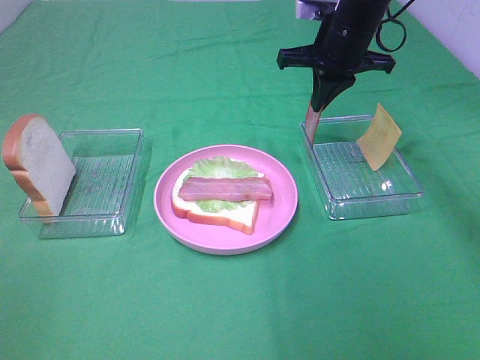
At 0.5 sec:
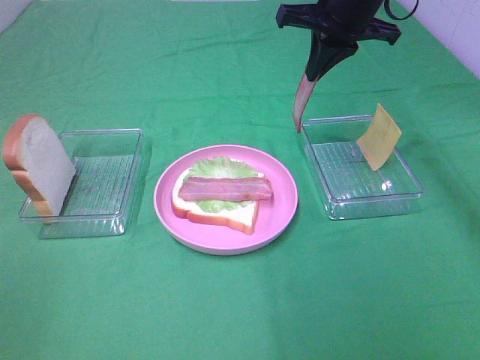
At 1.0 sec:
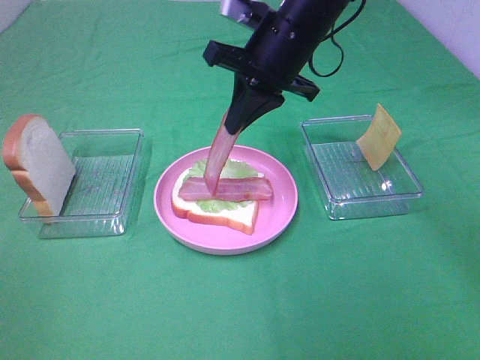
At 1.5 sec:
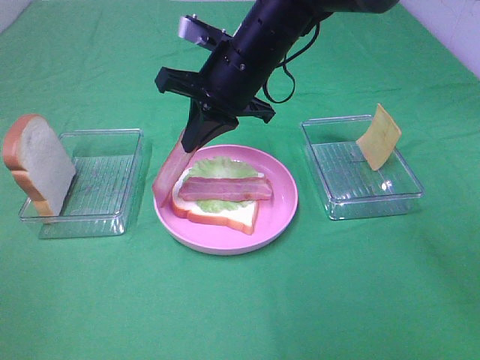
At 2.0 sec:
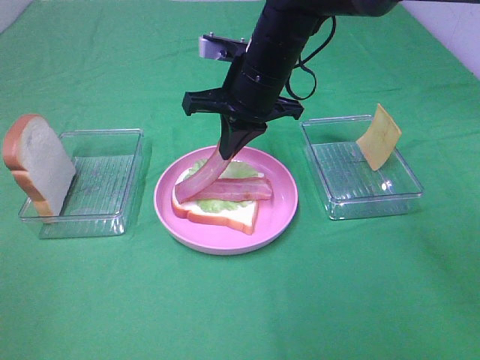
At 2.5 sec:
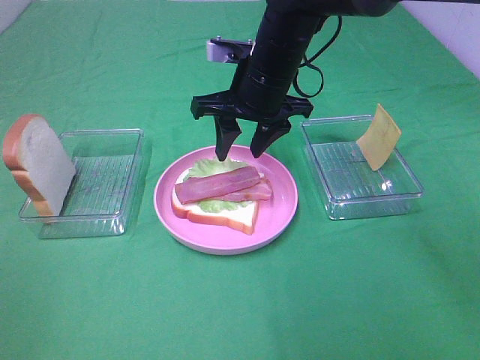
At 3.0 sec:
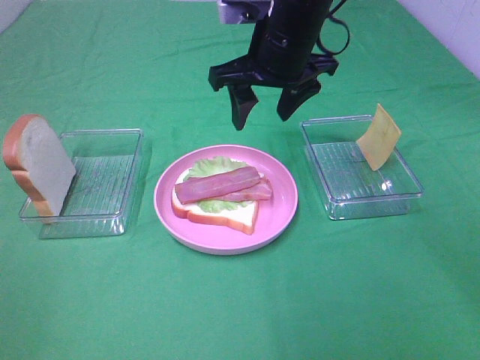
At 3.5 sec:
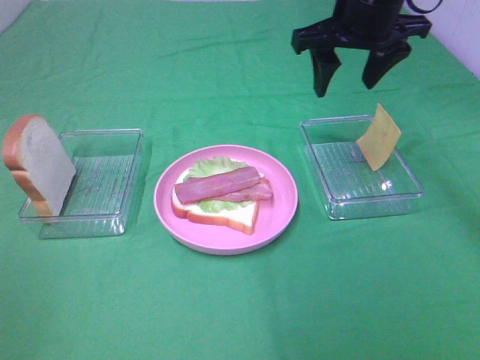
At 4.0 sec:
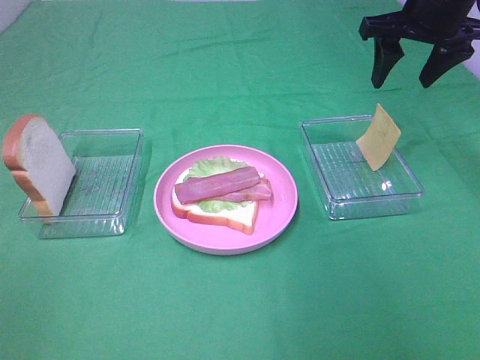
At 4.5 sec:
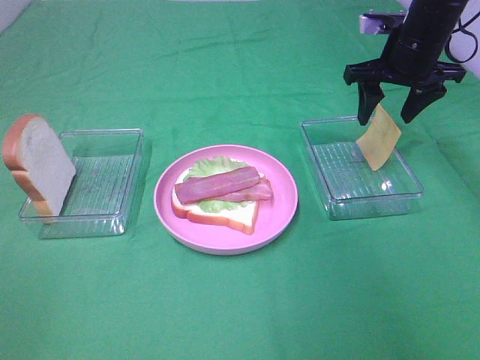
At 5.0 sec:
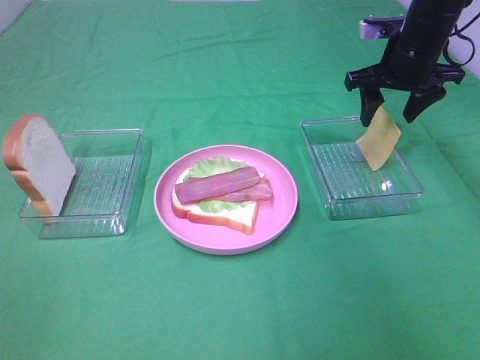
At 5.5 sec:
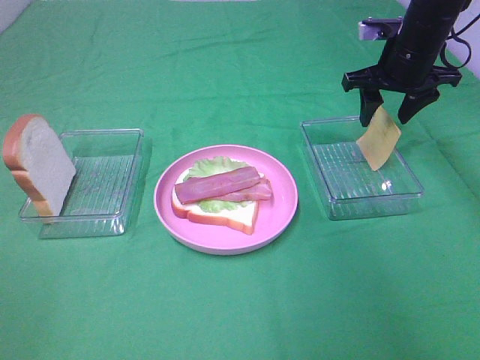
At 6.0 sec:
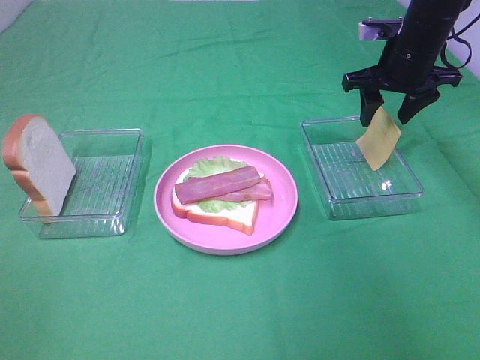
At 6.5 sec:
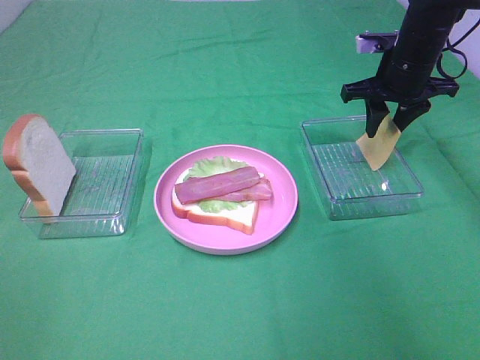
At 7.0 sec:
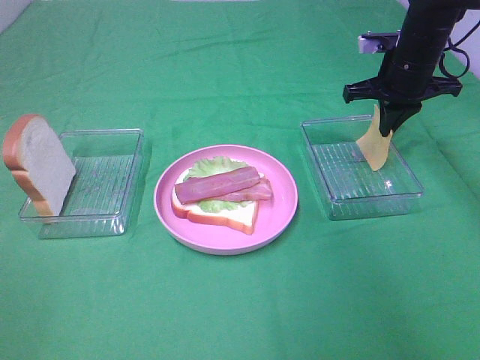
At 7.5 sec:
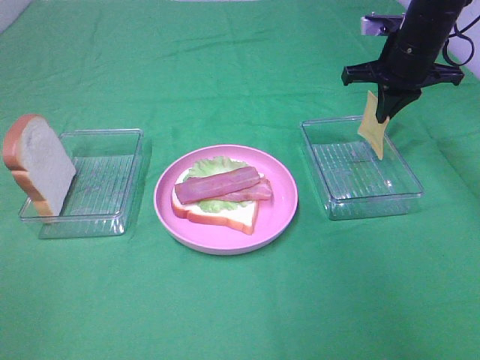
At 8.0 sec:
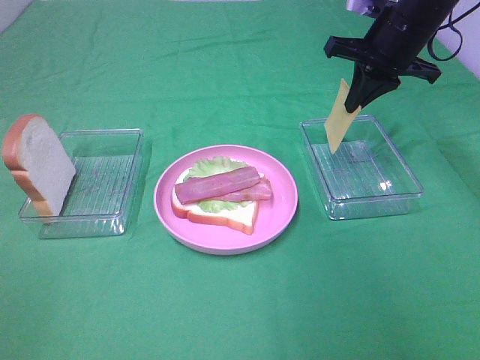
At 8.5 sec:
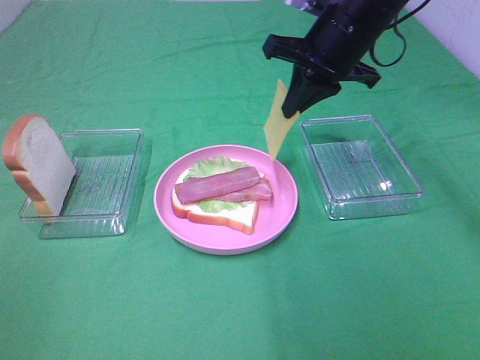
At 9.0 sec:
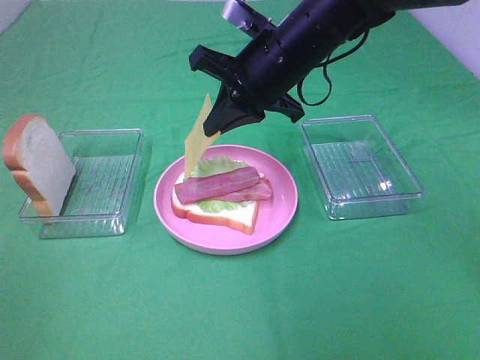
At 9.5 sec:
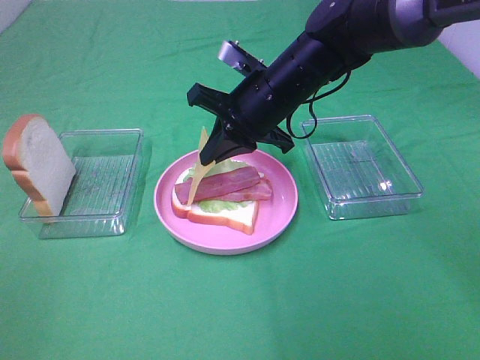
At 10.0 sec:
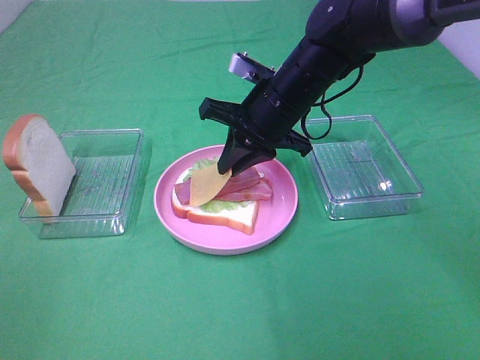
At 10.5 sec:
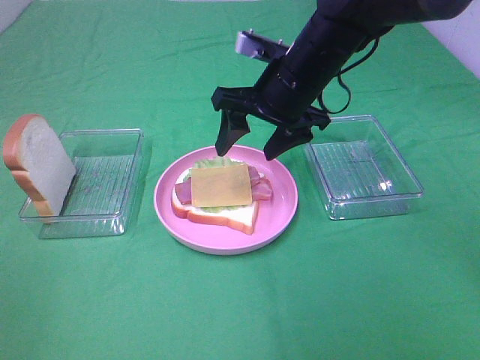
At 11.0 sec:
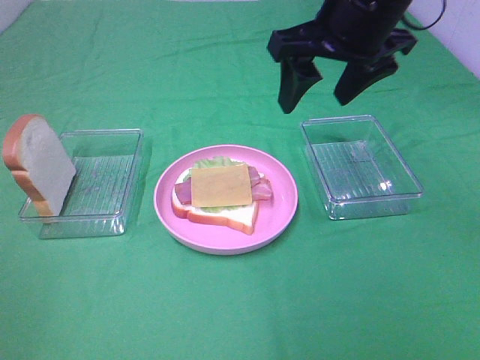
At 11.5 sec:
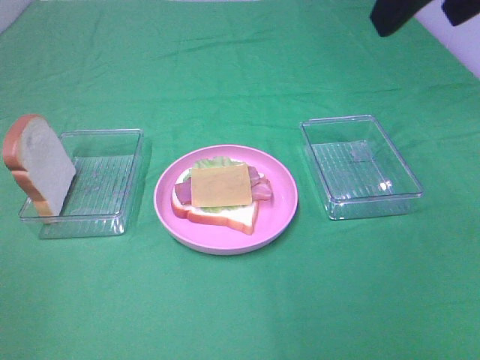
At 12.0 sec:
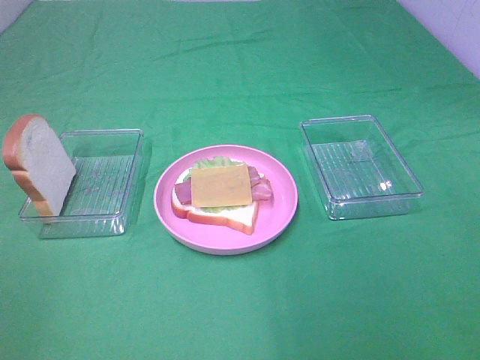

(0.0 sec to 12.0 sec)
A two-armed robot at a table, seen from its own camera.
Task of the whole recording: Make sandwiches.
Step, 0.0 sec - 2.5 sec: Right hand:place bacon on bacon.
Step, 3.0 sec - 7.0 sec: Right hand:grab the cheese slice.
Step, 7.5 sec - 10.5 sec: Right hand:place the cheese slice on top of the bacon.
0.0 sec - 2.0 sec: The right gripper heads to the left and backward, covering some 15 cm.
2.0 sec - 4.0 sec: The right gripper shifts approximately 20 cm to the right, and opens its fingers.
4.0 sec - 6.0 sec: The right gripper is displaced downward by some 10 cm.
6.0 sec - 8.0 sec: The right gripper moves approximately 5 cm, and closes its fingers.
8.0 sec - 10.0 sec: The right gripper travels to the left, downward and backward by roughly 15 cm.
10.0 sec - 12.0 sec: The right gripper travels backward, to the right and upward by some 40 cm, and opens.

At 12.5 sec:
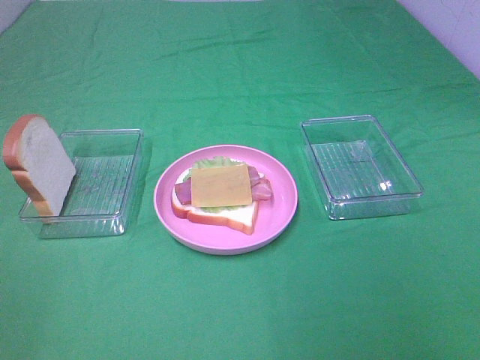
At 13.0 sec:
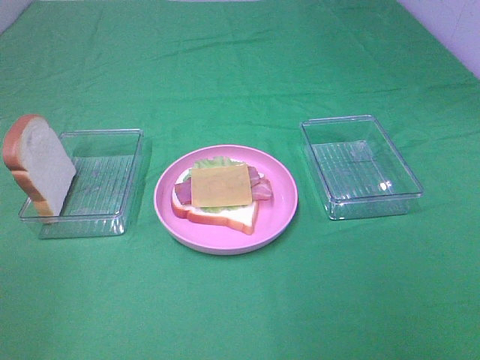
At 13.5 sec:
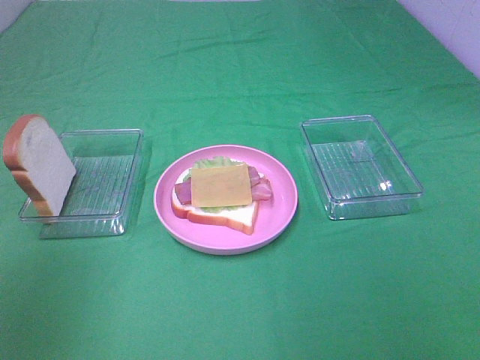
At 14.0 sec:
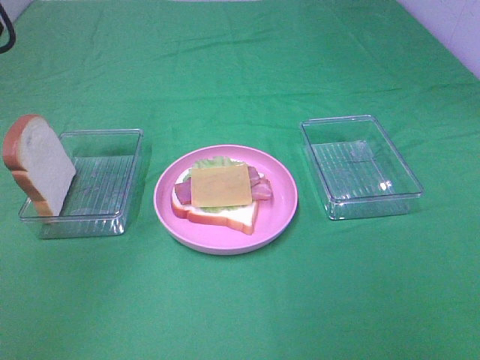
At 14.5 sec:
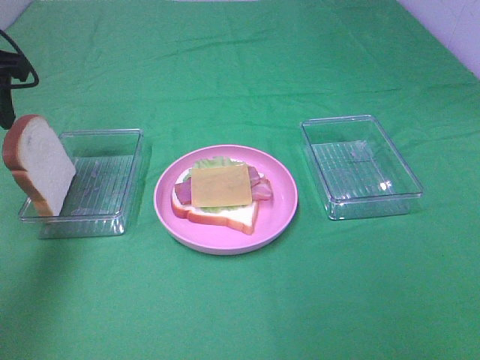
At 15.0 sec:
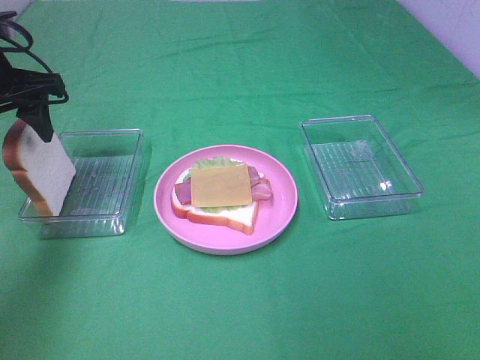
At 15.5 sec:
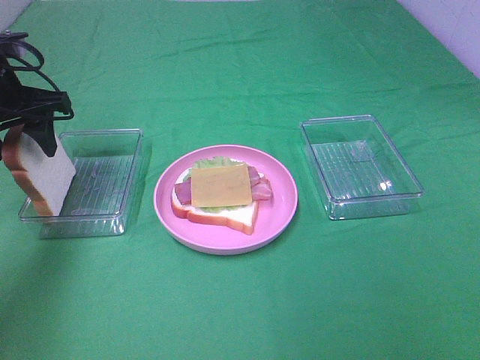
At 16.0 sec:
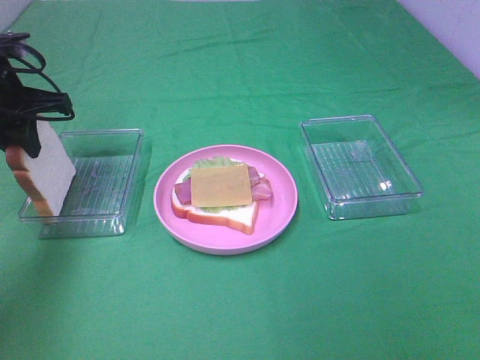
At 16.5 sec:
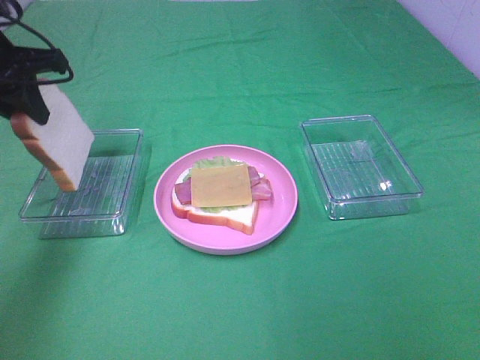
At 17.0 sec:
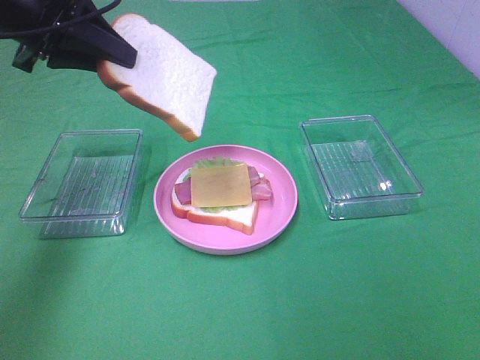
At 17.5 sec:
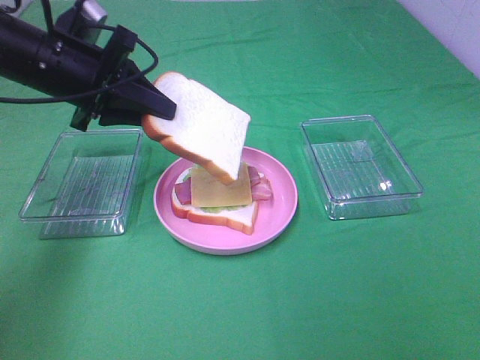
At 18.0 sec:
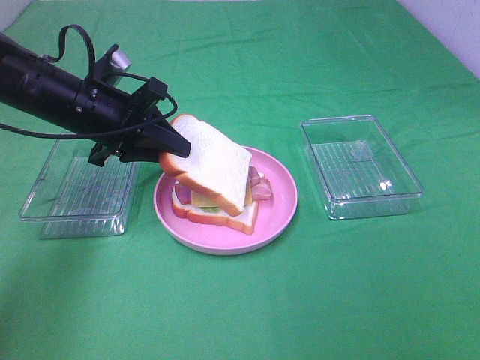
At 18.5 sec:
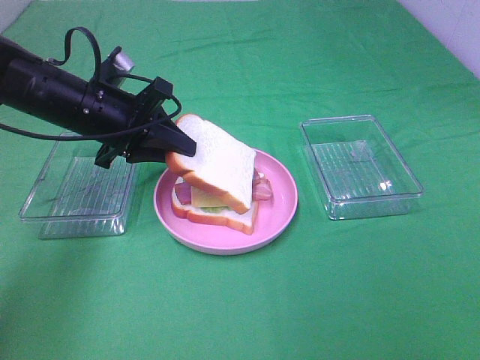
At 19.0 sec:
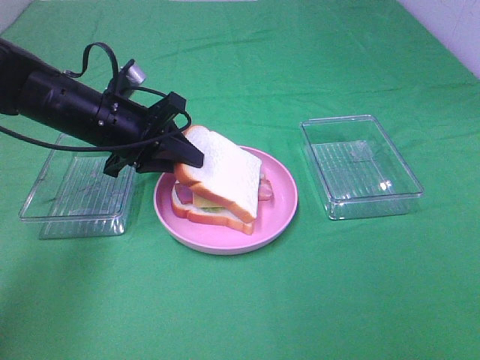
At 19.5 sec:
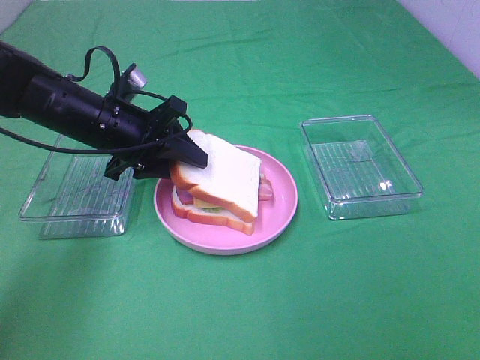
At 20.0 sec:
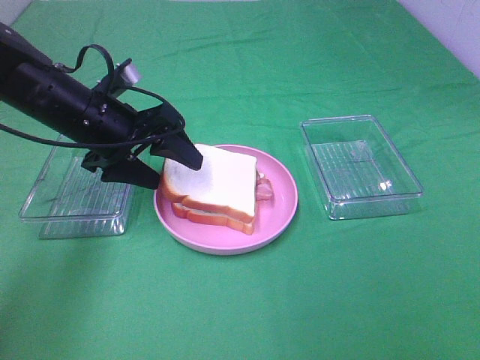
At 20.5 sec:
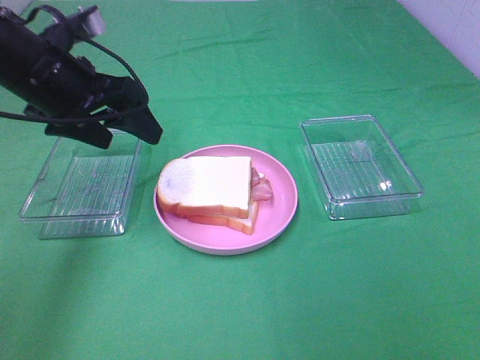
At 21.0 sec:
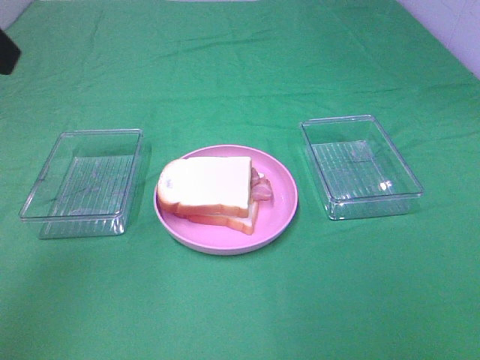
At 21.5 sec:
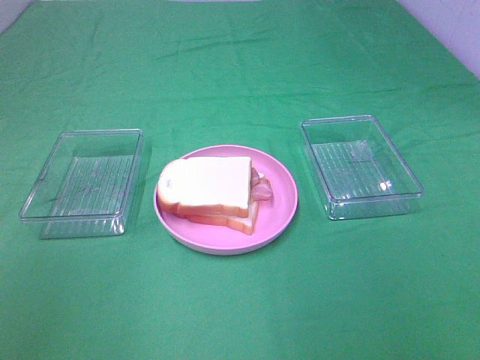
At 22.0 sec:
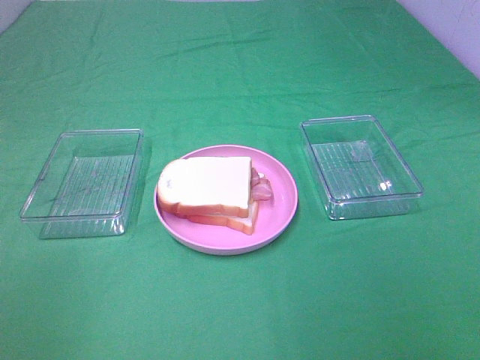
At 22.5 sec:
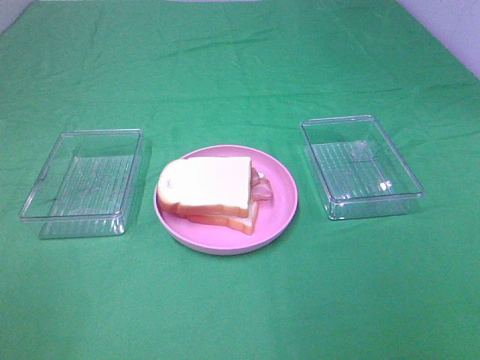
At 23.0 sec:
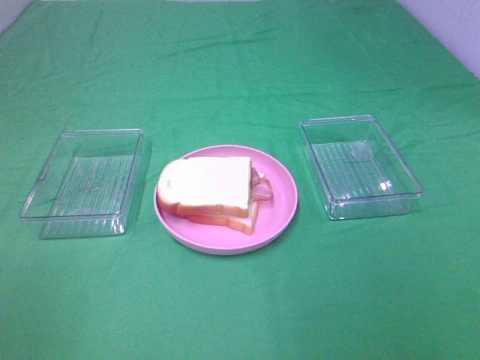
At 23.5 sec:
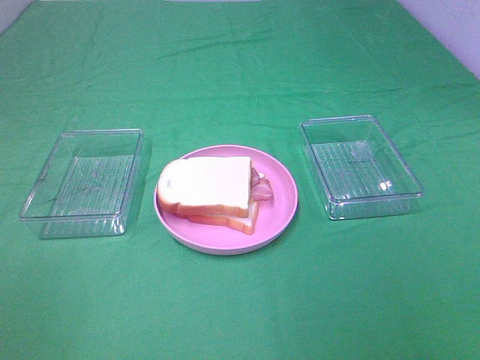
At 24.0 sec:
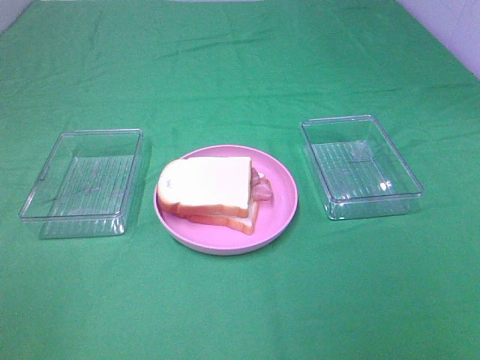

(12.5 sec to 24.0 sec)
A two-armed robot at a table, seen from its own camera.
Task of the whole recording: Make sandwiches.
Step, 12.5 sec - 16.0 sec: Left hand:grab the bread slice.
Step, 16.5 sec - 20.0 sec: Left hand:place the bread slice on the cheese slice.
12.5 sec - 14.5 sec: The left gripper shifts roughly 35 cm forward.
14.5 sec - 16.5 sec: The left gripper closes its fingers.
16.5 sec - 18.5 sec: The left gripper is displaced downward and to the right by roughly 15 cm.
18.5 sec - 20.0 sec: The left gripper opens up.
20.0 sec - 22.0 sec: The left gripper shifts some 35 cm backward and upward.

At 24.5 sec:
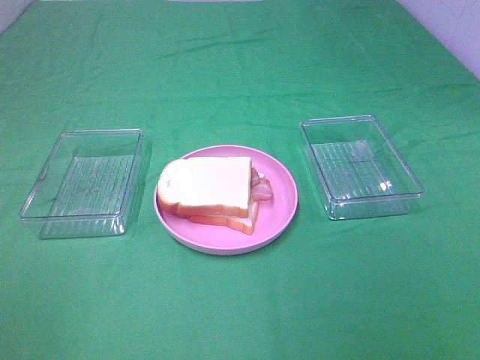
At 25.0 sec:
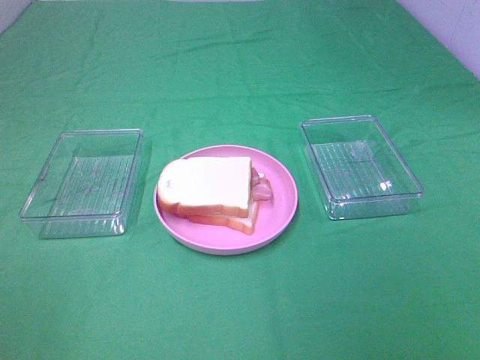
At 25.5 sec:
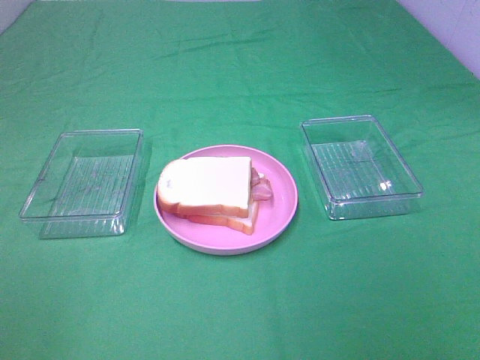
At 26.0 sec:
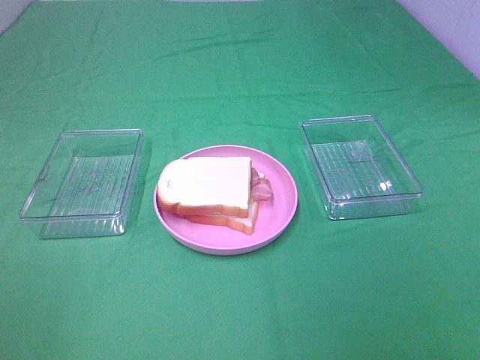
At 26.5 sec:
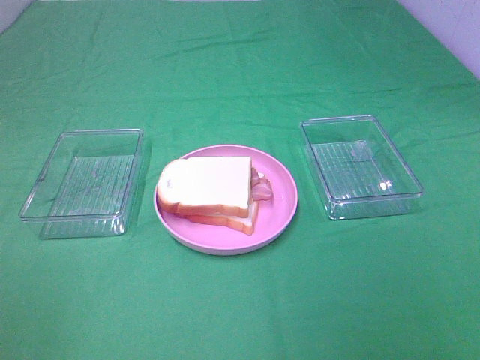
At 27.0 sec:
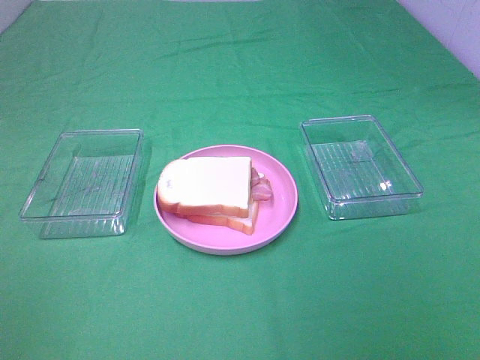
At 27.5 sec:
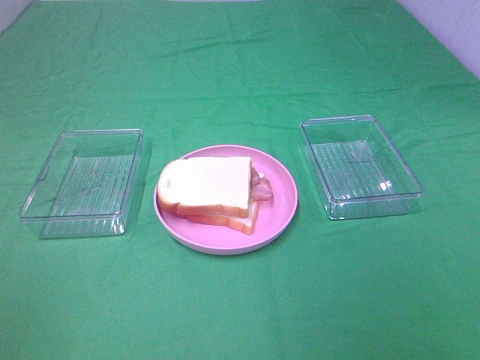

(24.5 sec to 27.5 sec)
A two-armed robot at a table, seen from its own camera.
Task of the whole recording: Make sandwiches.
24.5 sec - 26.0 sec: The two grippers keep their place.
